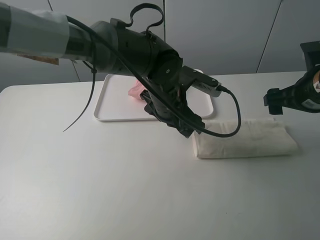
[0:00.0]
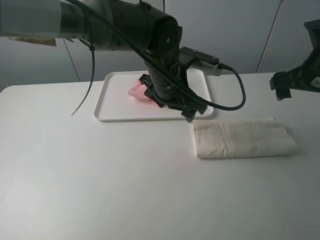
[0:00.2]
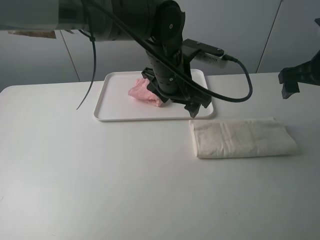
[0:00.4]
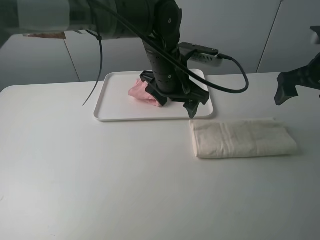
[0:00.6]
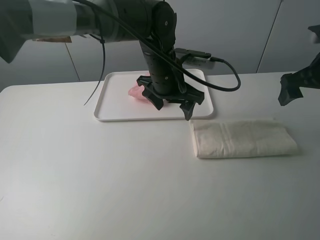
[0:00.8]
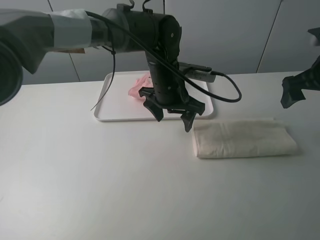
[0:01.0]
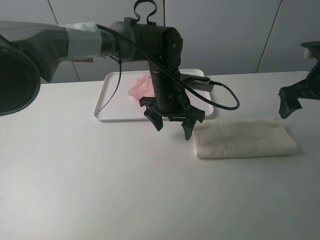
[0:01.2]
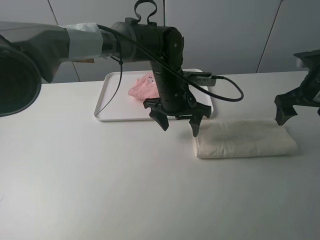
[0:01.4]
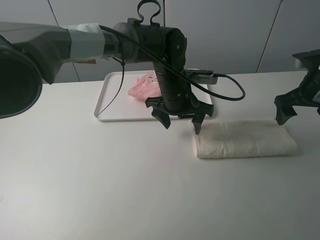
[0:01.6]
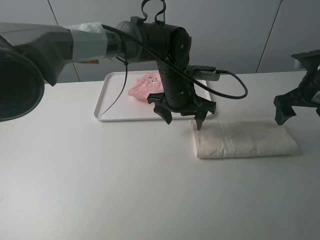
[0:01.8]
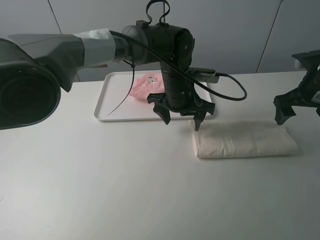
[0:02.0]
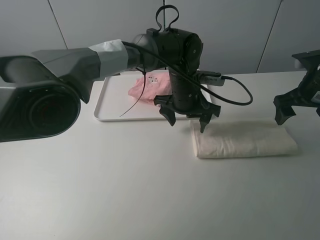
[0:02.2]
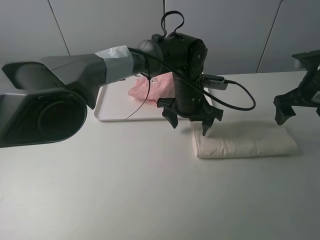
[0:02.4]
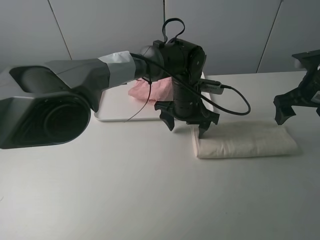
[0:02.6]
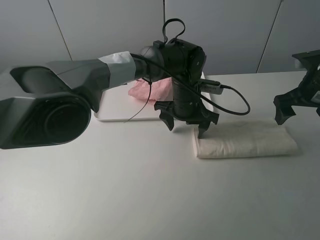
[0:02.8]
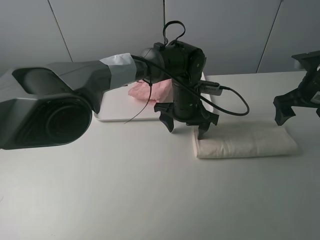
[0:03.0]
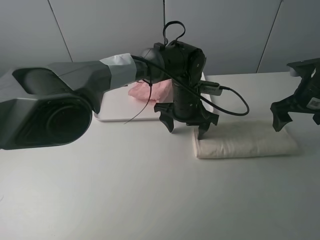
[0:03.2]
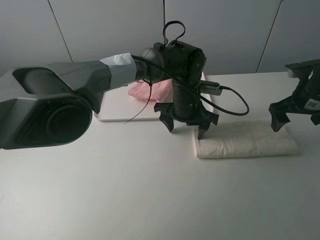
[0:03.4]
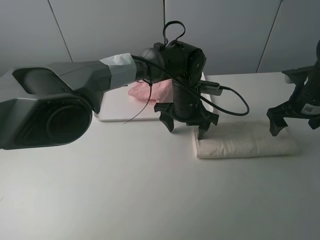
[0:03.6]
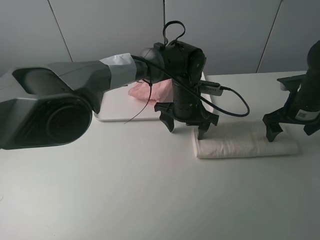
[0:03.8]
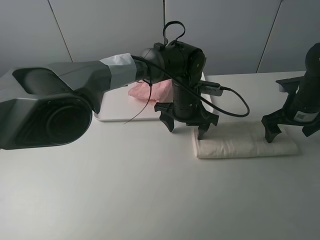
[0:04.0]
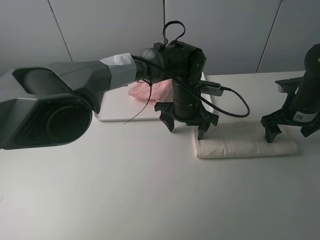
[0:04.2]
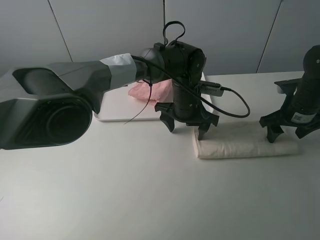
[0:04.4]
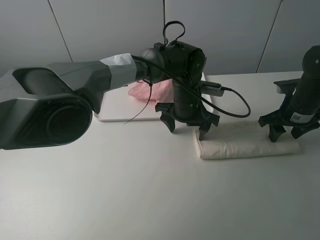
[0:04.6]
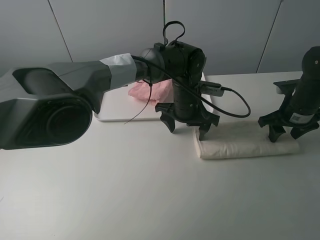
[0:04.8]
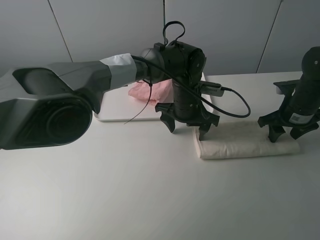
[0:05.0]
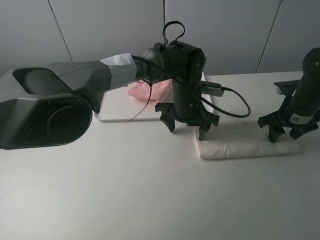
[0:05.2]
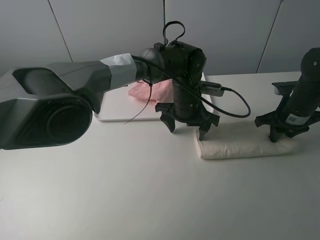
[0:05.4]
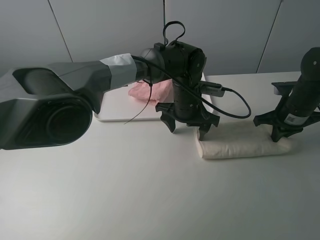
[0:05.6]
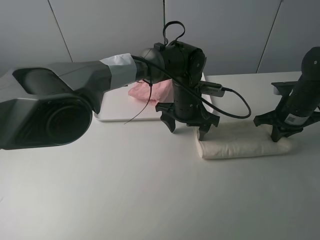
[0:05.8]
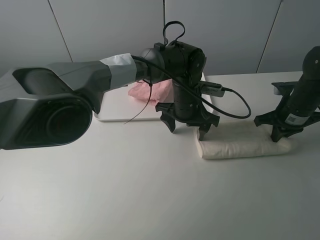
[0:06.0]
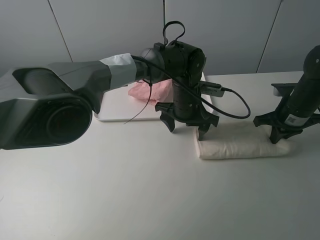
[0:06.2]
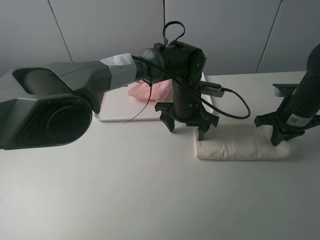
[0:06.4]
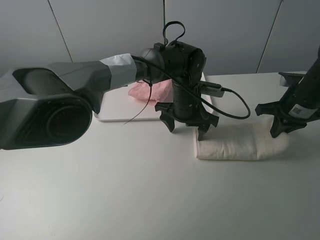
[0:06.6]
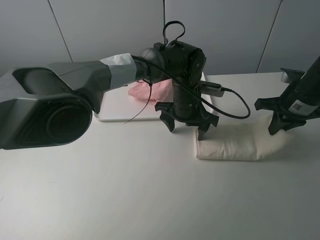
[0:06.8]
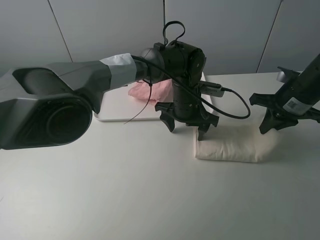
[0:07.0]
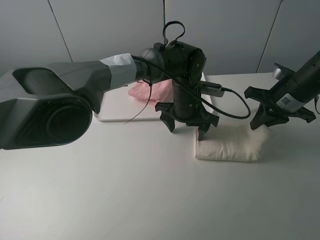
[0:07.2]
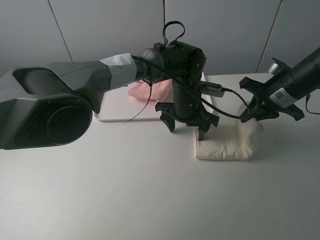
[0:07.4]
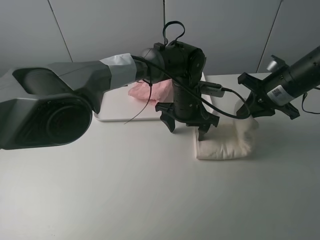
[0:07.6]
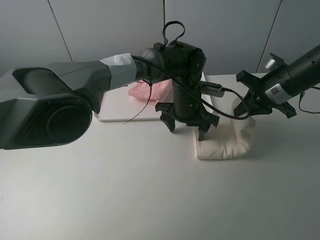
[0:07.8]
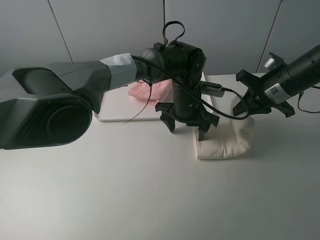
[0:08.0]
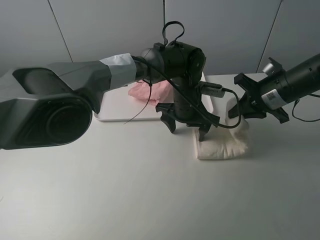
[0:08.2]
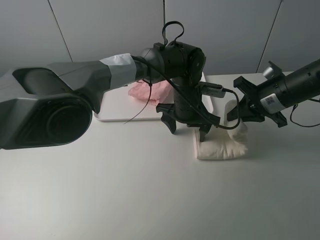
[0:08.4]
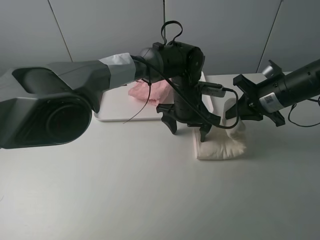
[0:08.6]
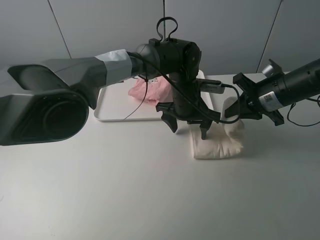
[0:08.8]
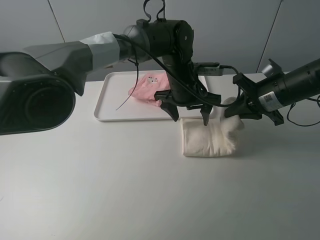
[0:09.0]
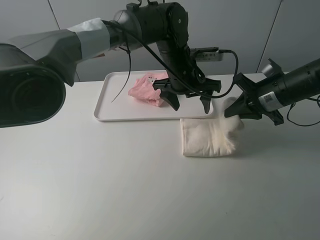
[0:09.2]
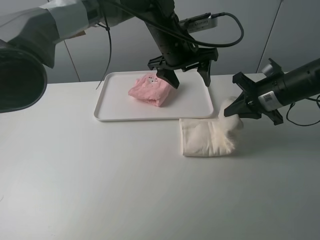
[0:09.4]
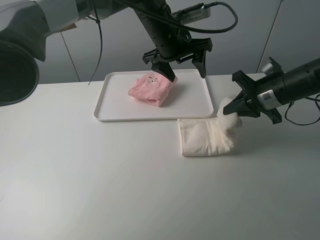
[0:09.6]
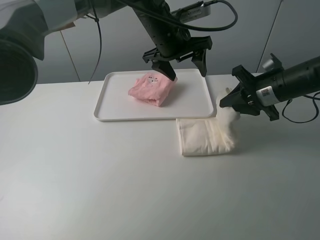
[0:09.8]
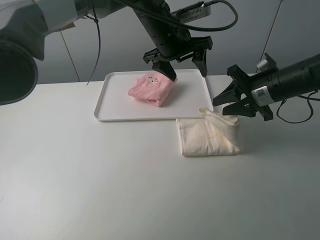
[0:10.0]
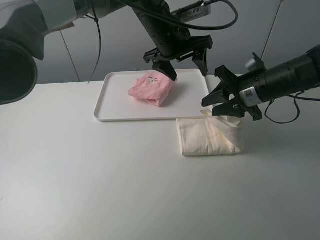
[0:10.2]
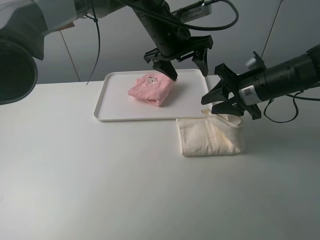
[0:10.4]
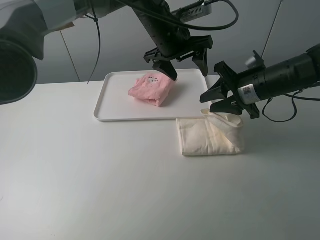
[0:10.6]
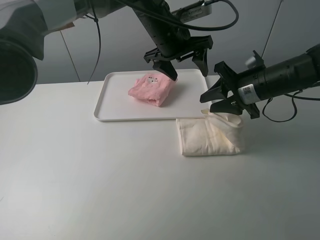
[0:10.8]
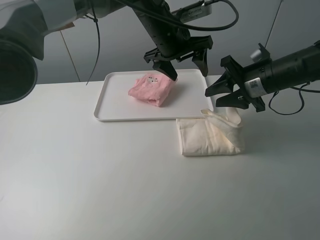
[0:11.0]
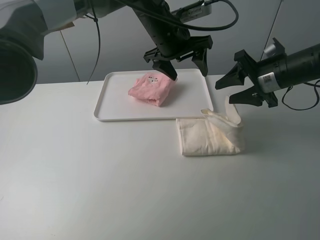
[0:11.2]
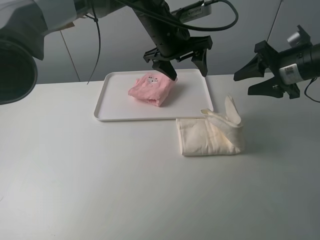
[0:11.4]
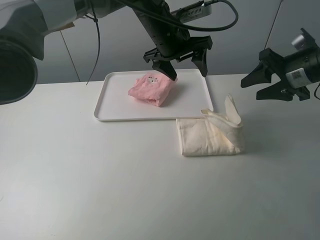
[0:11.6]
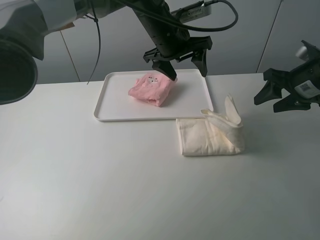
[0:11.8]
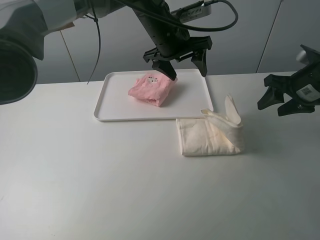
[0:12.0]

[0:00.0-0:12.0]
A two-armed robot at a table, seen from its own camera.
Task of the whole recording: fold one of the towels by two grippers and place it on the tray,then fold another towel by two grippers and place it on the folded towel.
Step, 0:00.0 to 0:03.2: Press the white towel with the left gripper.
Step, 0:03.4 to 0:05.6: Grasp the white towel with the right gripper.
0:00.0 to 0:01.6: The right gripper shifts by about 5 cm.
0:03.0 to 0:04.4: The right gripper travels downward by roughly 5 cm.
0:04.4 to 0:06.0: The right gripper closes.
0:06.0 to 0:07.6: The right gripper is displaced upward by approximately 5 cm.
0:07.6 to 0:09.0: The left gripper moves about 5 cm.
0:09.0 to 0:10.4: The left gripper travels upward by roughly 10 cm. The right gripper opens up.
0:10.4 to 0:12.0: The right gripper is displaced to the right by roughly 10 cm.

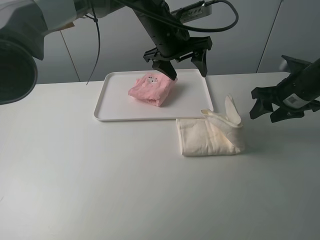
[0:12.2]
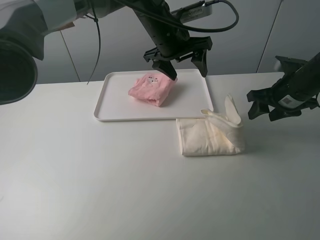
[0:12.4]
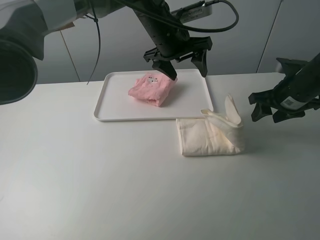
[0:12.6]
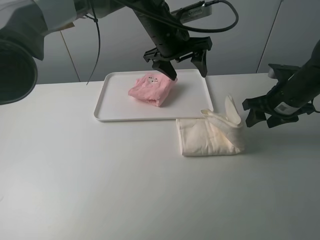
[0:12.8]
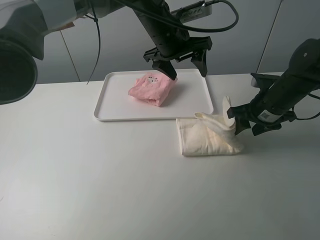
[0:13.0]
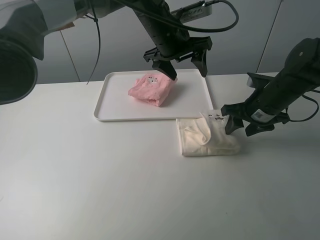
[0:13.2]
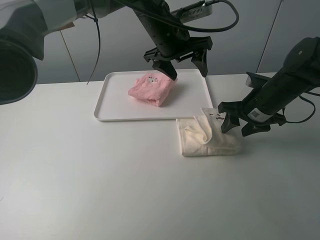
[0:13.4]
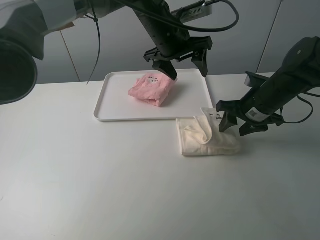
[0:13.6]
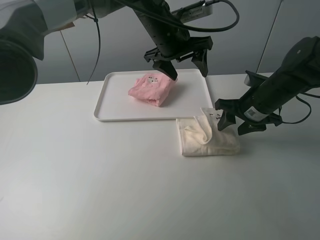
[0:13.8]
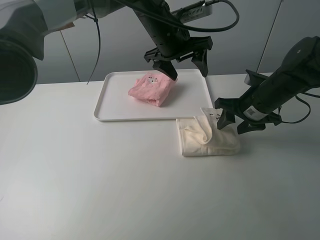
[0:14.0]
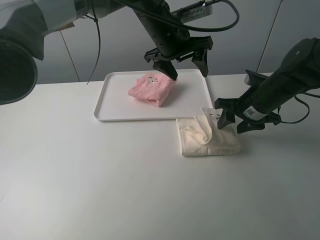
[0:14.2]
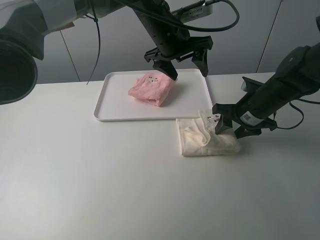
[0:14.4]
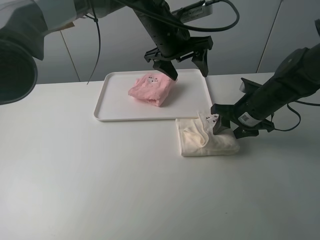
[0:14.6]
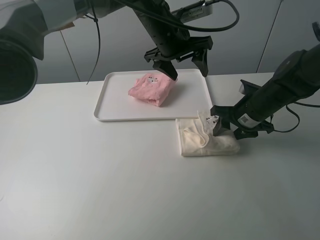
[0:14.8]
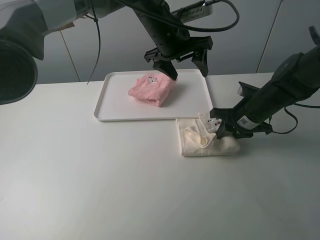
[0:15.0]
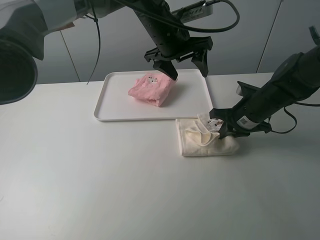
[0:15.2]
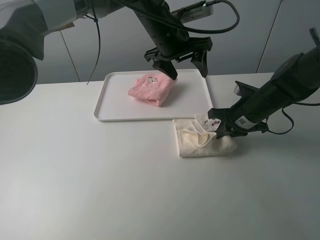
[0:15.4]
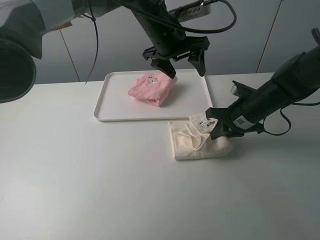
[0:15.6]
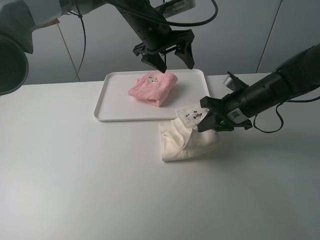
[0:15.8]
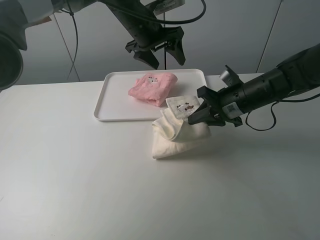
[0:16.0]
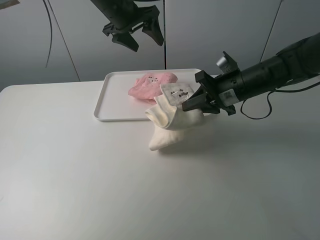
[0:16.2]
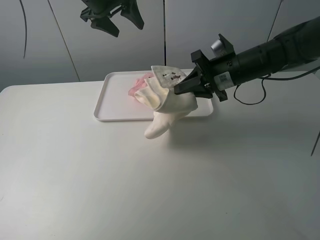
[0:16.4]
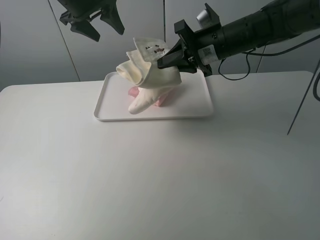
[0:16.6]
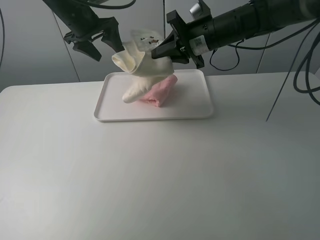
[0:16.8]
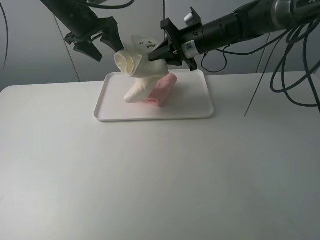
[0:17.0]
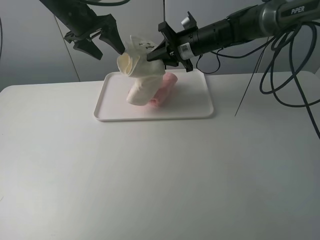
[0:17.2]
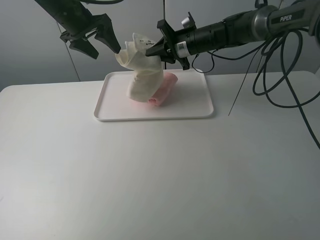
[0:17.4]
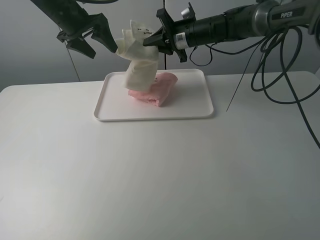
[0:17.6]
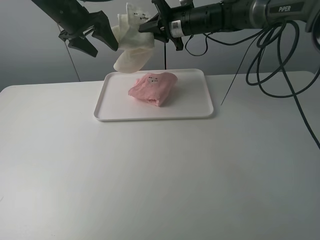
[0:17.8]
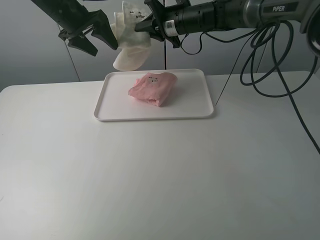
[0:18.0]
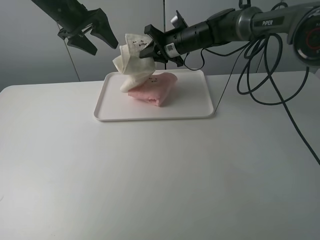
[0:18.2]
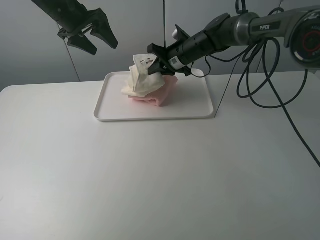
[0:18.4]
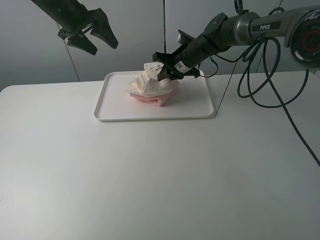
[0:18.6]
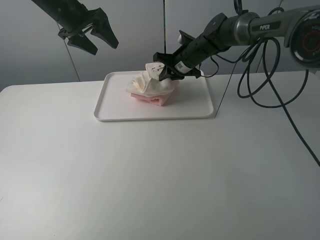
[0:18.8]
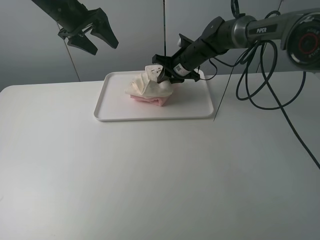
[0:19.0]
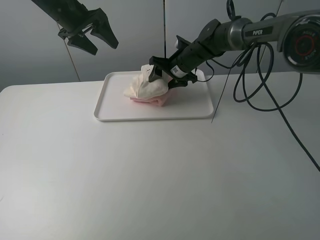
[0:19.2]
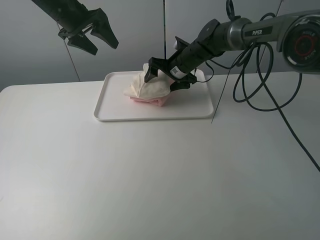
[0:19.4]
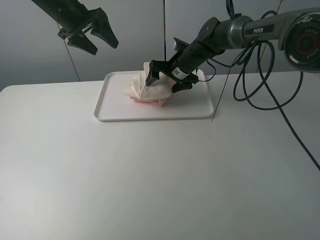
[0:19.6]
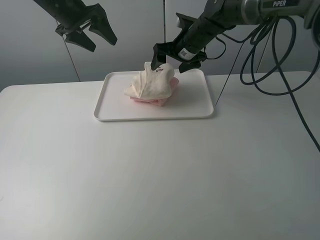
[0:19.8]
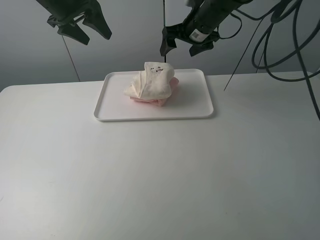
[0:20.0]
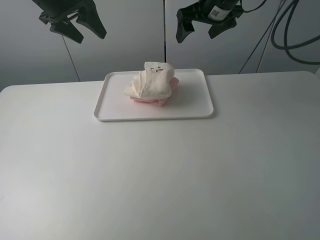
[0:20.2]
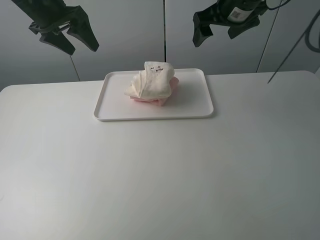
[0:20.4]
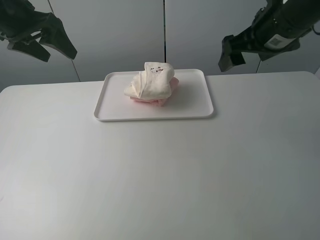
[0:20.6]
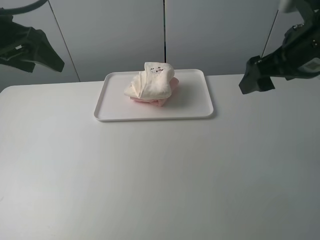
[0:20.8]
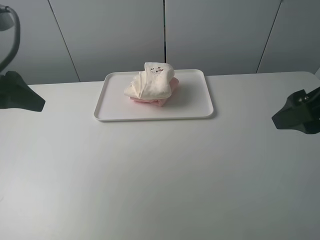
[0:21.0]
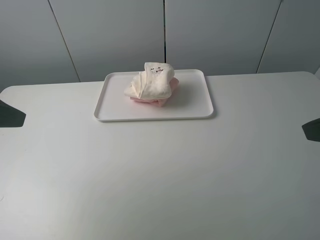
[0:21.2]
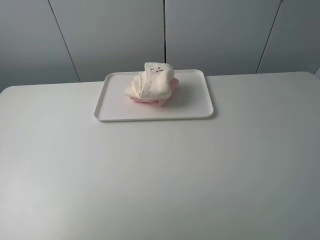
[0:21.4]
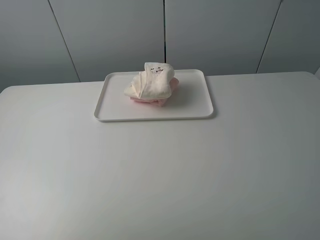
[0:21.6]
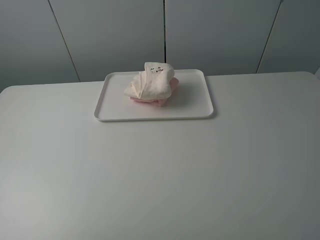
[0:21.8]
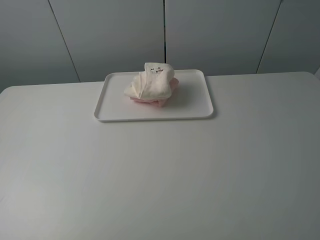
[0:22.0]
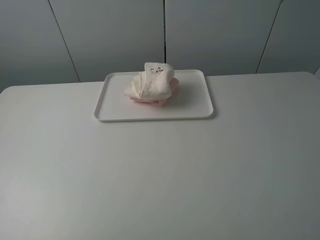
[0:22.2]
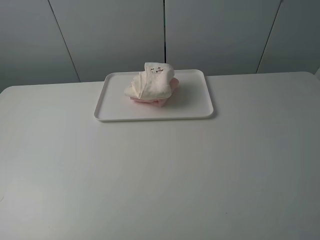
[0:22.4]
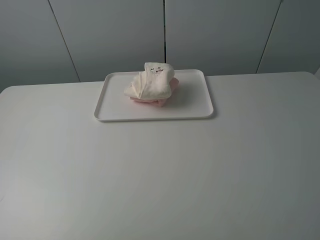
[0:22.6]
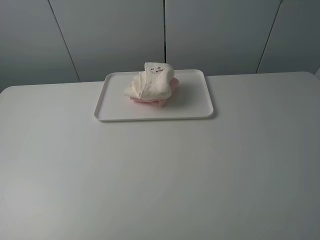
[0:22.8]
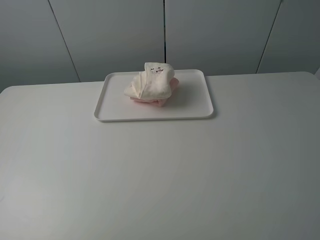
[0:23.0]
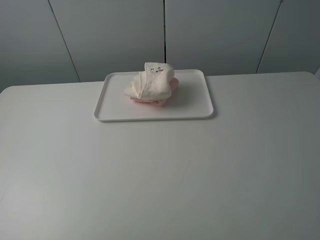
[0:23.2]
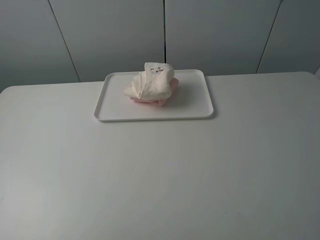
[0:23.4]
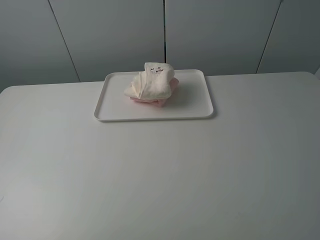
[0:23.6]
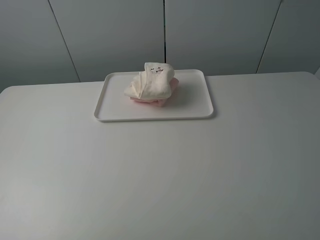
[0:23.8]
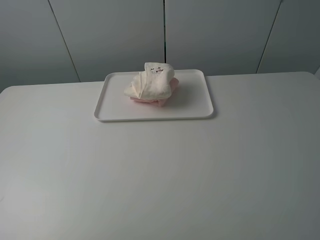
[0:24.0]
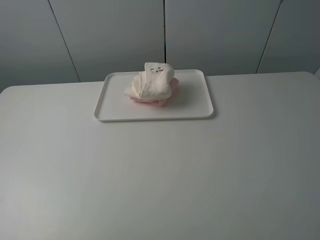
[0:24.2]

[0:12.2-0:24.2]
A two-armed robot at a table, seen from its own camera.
Task of the whole recording: fold one of the towels by two grippers and place it on the tray,then fold another towel by two grippers and place it on the folded towel.
Step, 0:13.6 to 0:15.4: Grasp the white towel with the right gripper.
Step, 0:15.6 to 0:19.6: Place the white towel on the pink towel with the left gripper.
0:12.2 to 0:13.8: The right gripper travels to the left by approximately 5 cm.
0:13.8 to 0:15.2: The right gripper closes its fingers.
0:15.2 to 0:16.6: The left gripper shifts roughly 20 cm to the left. Meanwhile the right gripper shifts some 15 cm upward, to the left and forward.
0:16.6 to 0:18.2: The right gripper is displaced forward, downward and to the left by some 15 cm.
0:18.2 to 0:19.8: The right gripper opens its fingers.
0:19.8 to 0:21.2: The left gripper heads backward, covering approximately 30 cm, while the right gripper moves backward and to the right, about 40 cm.
0:21.2 to 0:22.6: Both grippers travel together backward, some 15 cm.
